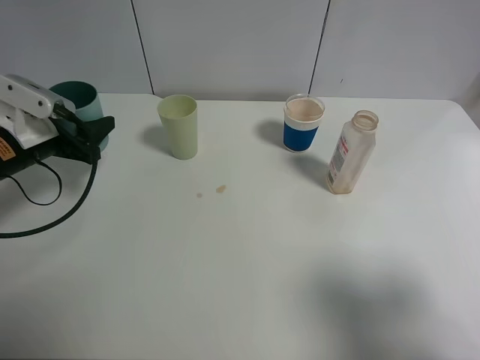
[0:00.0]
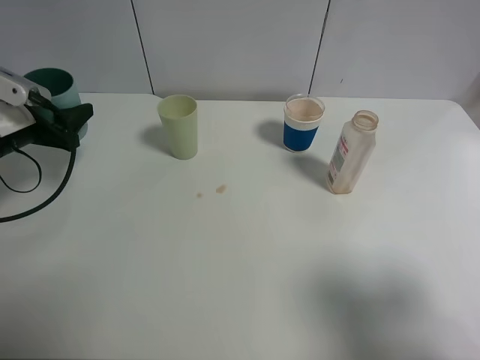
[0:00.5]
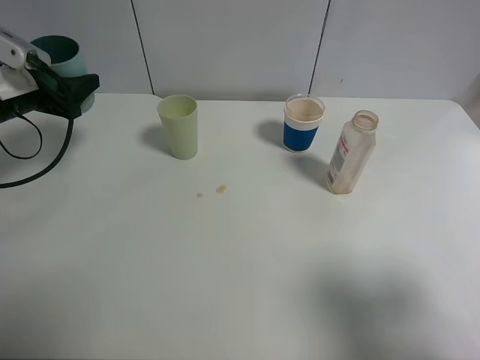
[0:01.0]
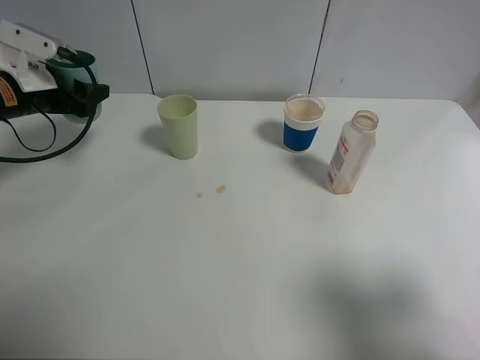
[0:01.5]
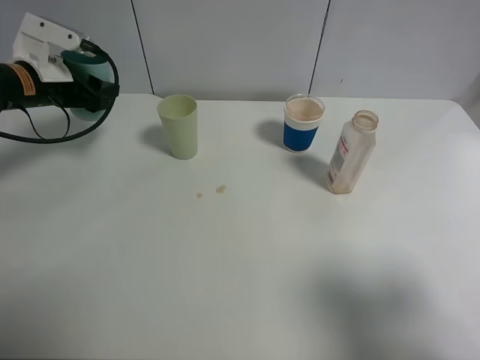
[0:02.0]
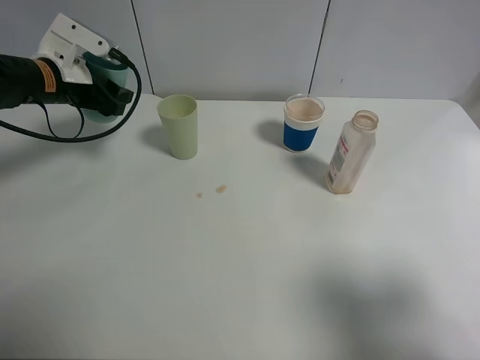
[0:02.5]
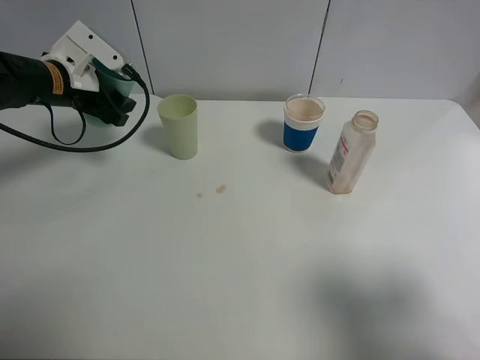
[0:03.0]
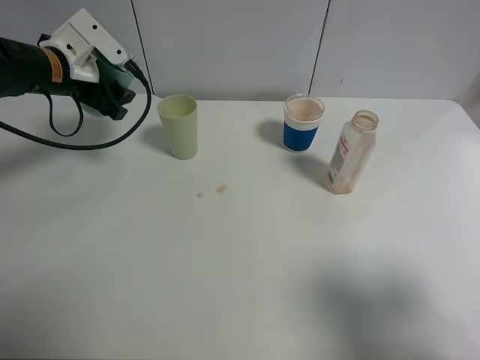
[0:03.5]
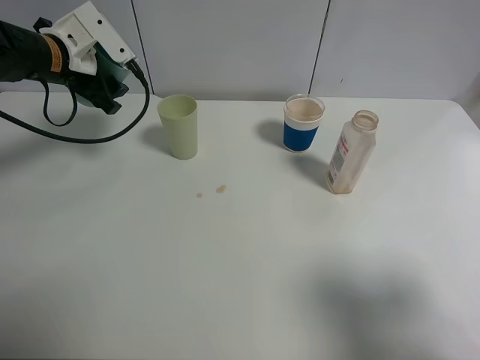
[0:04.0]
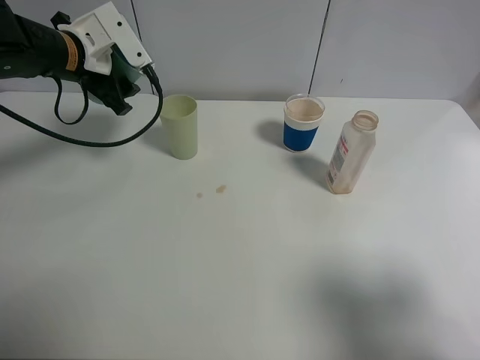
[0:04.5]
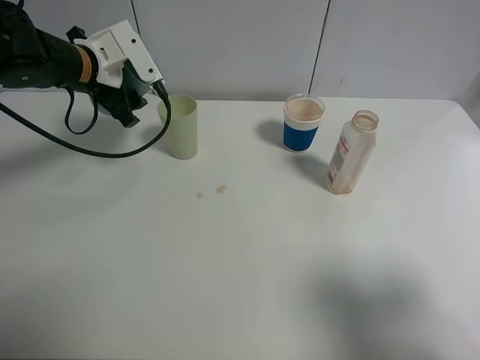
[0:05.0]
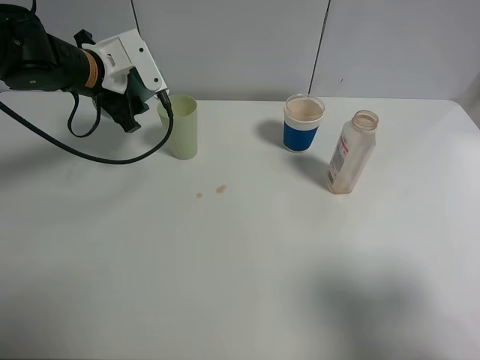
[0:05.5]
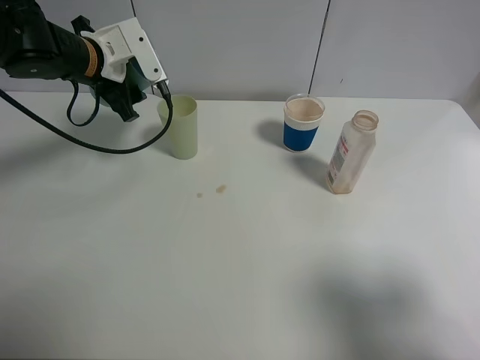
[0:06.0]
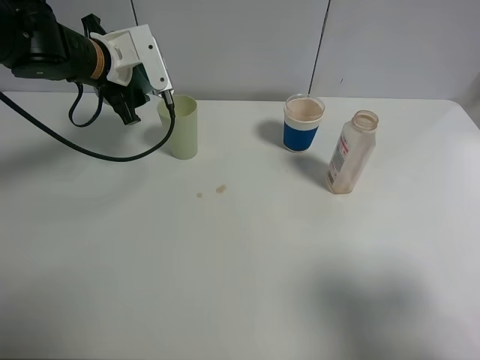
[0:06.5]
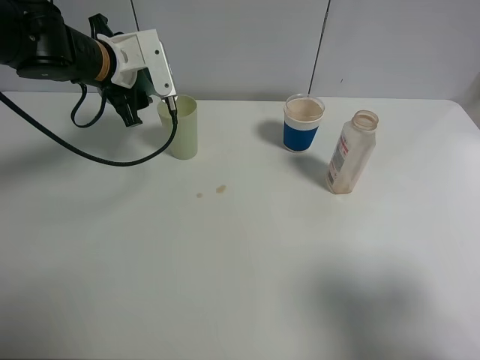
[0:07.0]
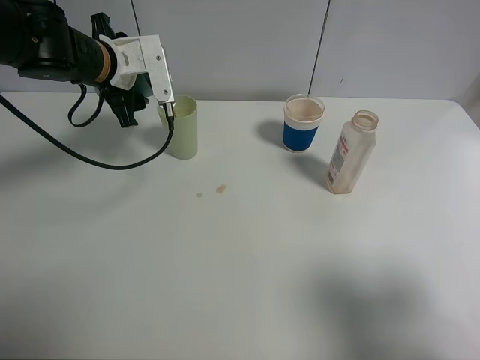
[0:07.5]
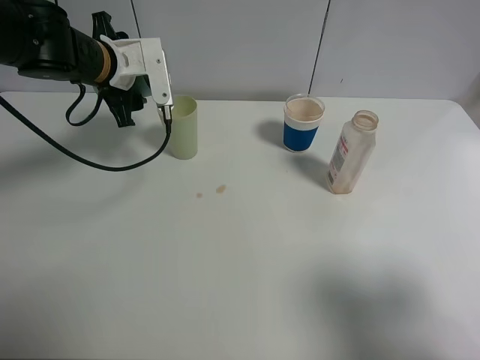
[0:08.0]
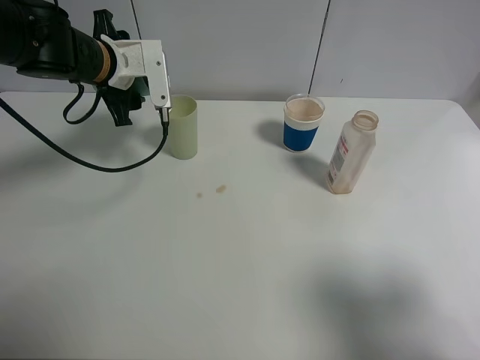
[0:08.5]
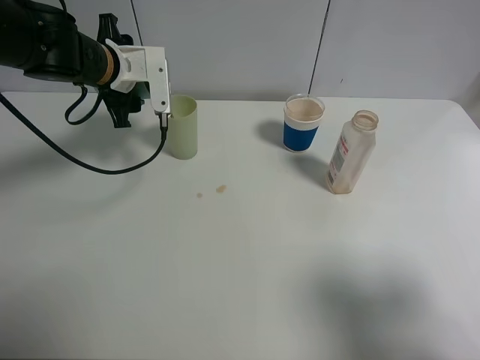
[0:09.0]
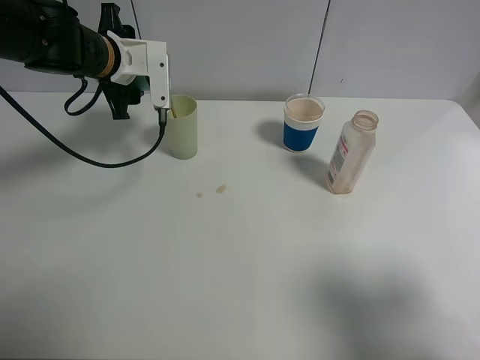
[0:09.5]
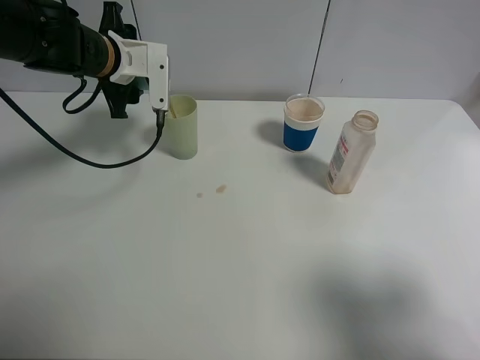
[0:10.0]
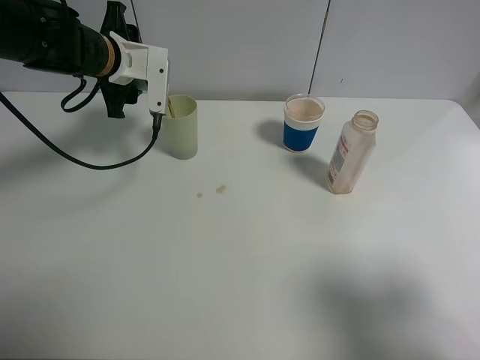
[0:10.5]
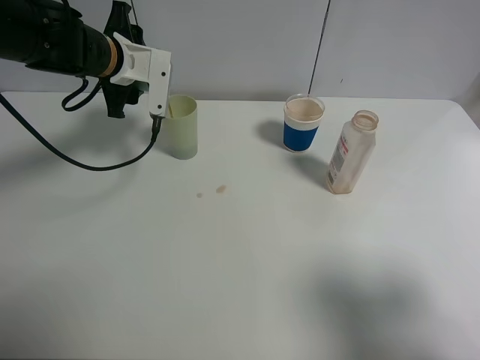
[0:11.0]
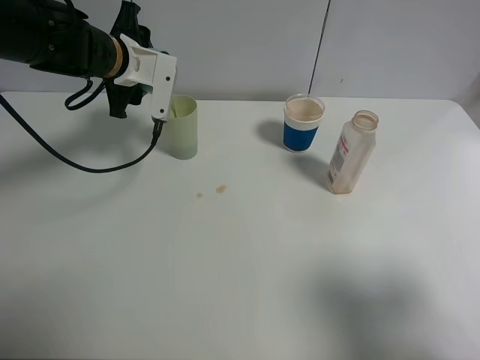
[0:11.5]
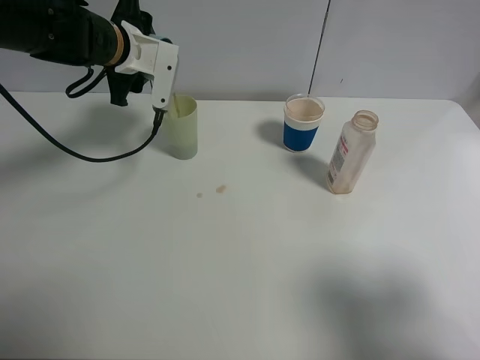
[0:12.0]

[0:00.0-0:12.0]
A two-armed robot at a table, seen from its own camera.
Task of the whole recording: use a clamp to hold the bottle of the drink, pour the beverage into a random cup, then clamp the cup containing the drink and pour the drink into another random cup.
0:00.0 to 0:02.0: The left gripper travels forward by roughly 10 cm.
0:02.0 to 0:04.0: The left gripper shifts by some 5 cm.
0:04.0 to 0:06.0: There are only small adjustments of the grippers.
0:06.0 to 0:08.0: The grippers make only small movements.
0:08.0 to 0:10.0: The grippers move only a little.
0:10.0 to 0:12.0: The grippers make only small movements.

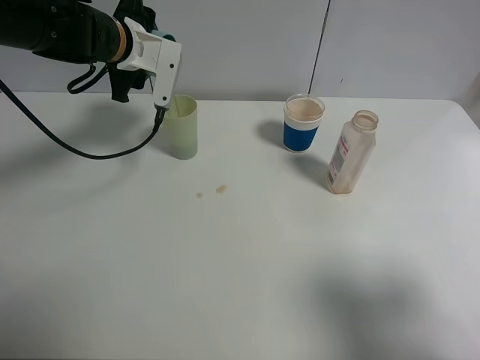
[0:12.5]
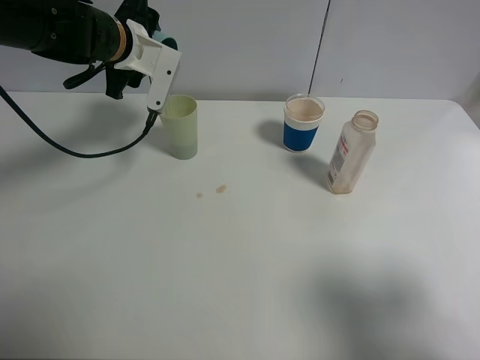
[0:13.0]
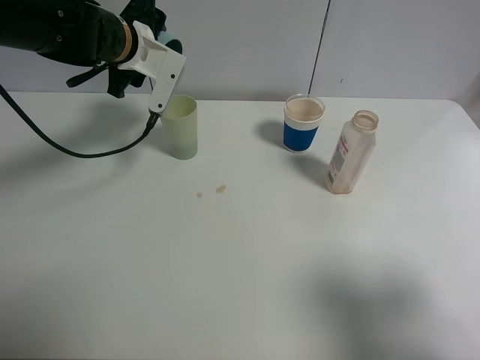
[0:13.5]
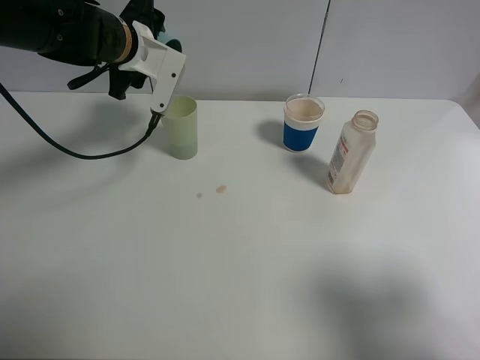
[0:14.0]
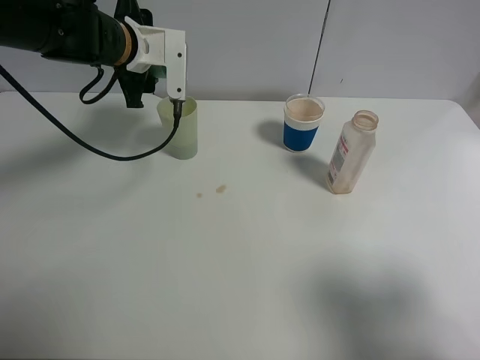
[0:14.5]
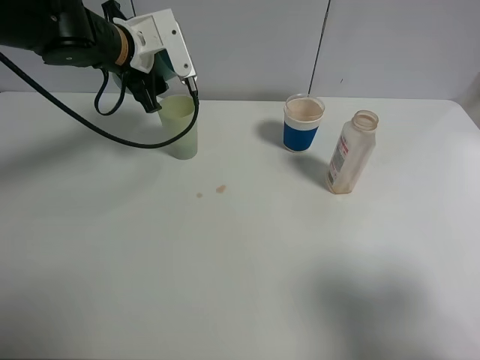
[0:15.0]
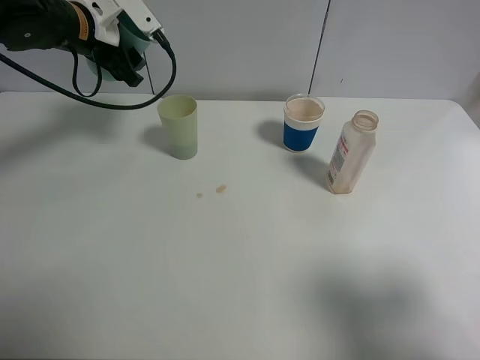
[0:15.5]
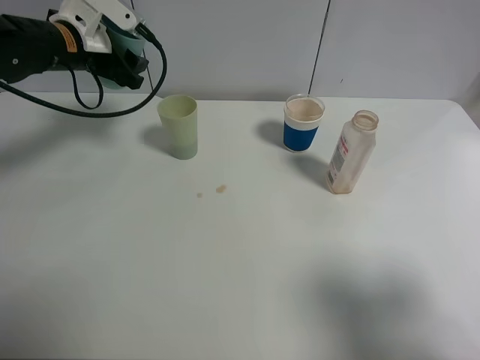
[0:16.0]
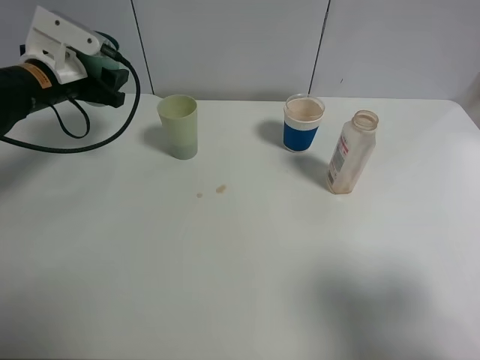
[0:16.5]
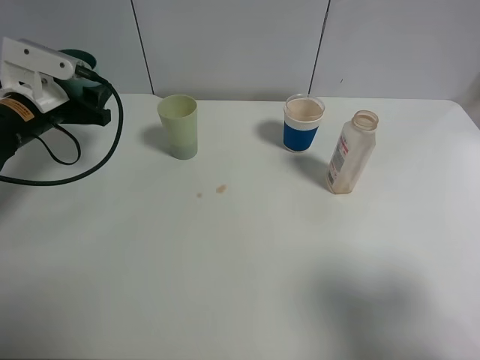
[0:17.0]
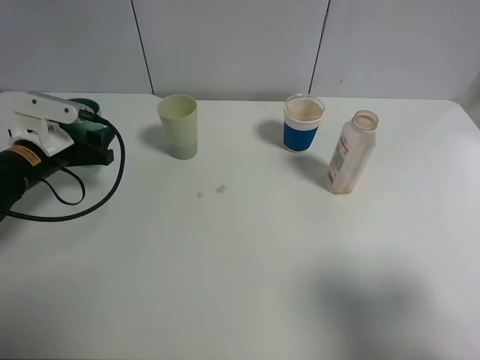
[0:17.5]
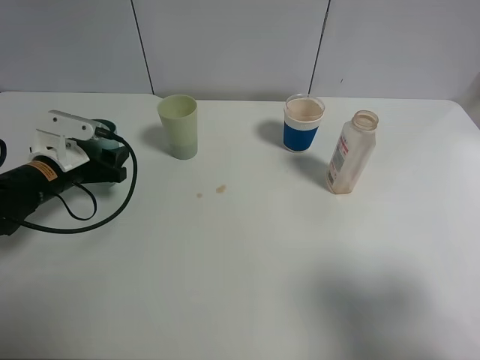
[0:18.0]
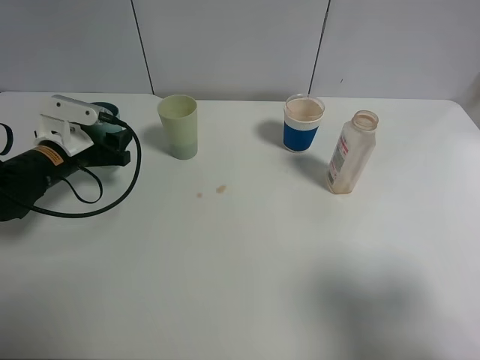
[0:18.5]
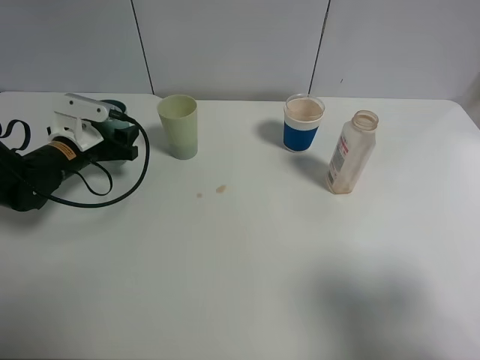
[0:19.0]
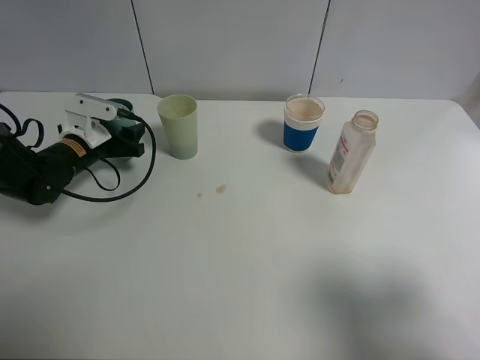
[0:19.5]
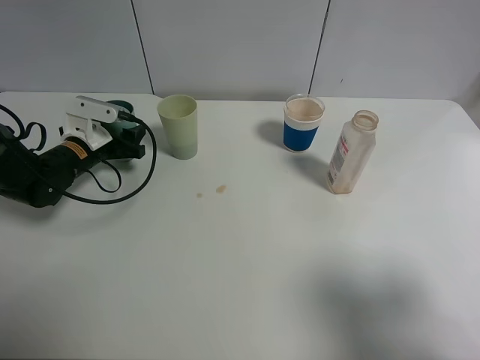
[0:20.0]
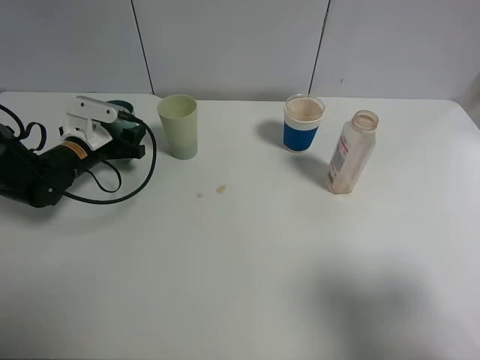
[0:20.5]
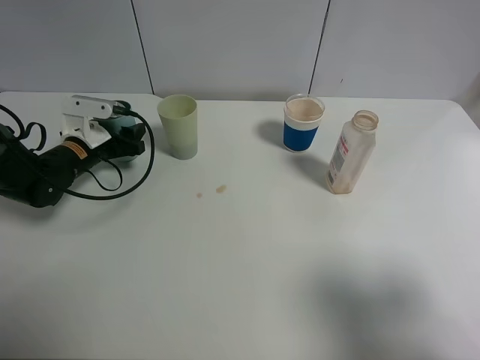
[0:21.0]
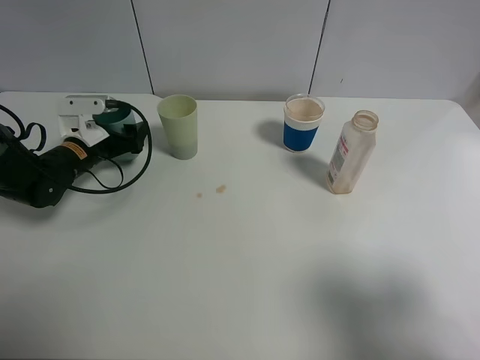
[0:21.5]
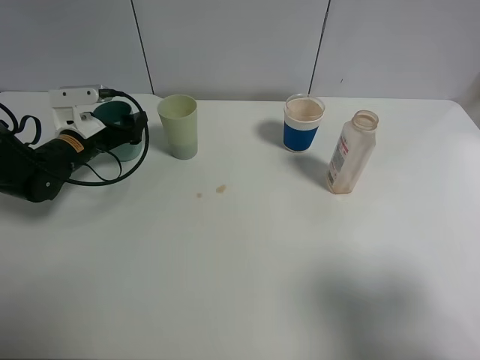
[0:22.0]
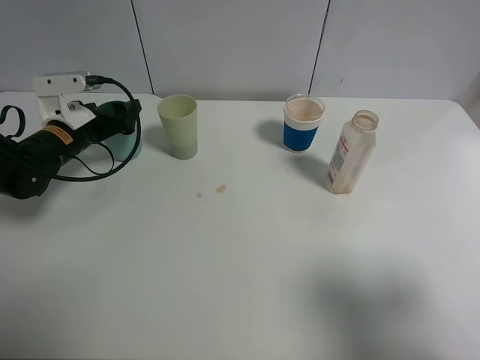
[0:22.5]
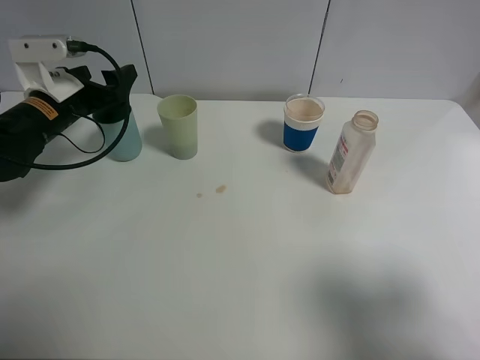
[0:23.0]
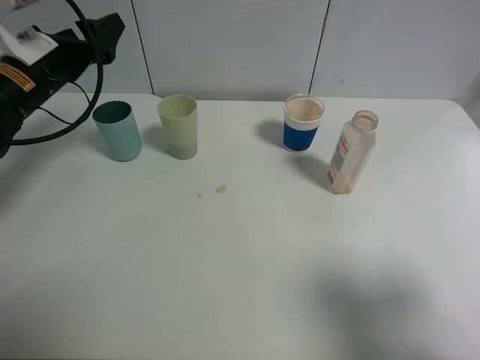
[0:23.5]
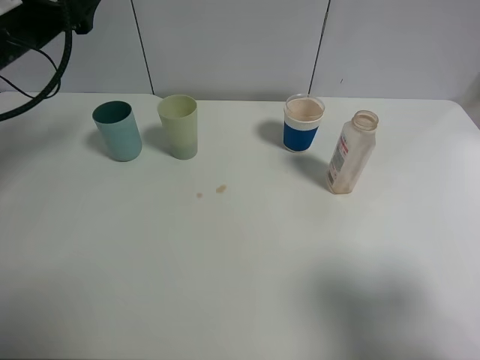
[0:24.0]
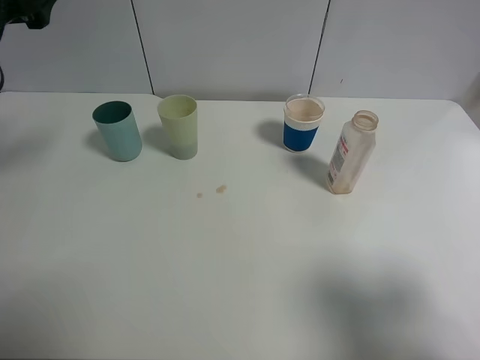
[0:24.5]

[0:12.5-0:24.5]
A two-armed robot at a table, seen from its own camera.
Task of the whole recording: use a clamp to hold the bottle of the drink, pour the beverage into a random cup, then clamp the cup containing the drink and pour the drink into another random cup.
Step, 0:12.5 to 0:15.0: Pour the drink into the green plastic cup with left gripper.
Step, 0:15.5 to 0:22.0: Place the blue plastic cup on the table with left gripper.
0:12.5 to 0:14.5: The grippers stay close to where they were, moving slightly.
0:14.5 to 0:16.5: The left gripper goes about 10 cm to the left.
0:16.5 to 0:18.5: The left gripper goes approximately 10 cm downward.
0:18.5 to 0:20.5: The left gripper changes place by about 5 cm.
0:20.5 to 0:22.5: The left gripper opens up.
0:22.5 to 0:24.5: The left gripper travels upward and backward by approximately 20 cm.

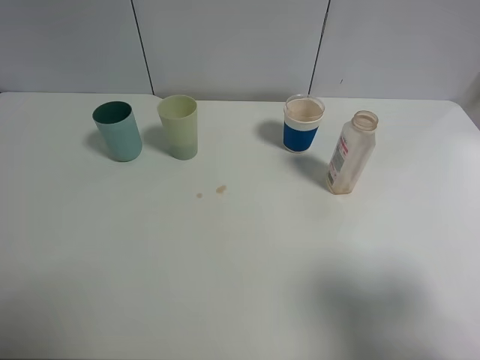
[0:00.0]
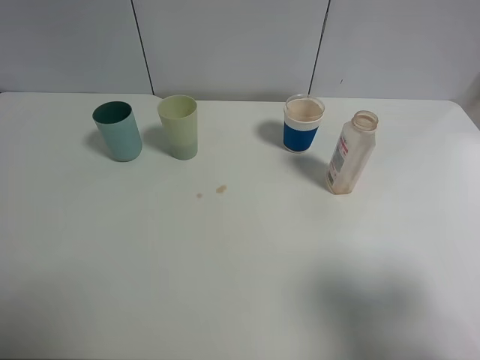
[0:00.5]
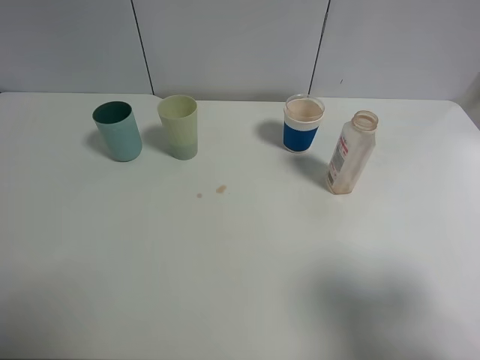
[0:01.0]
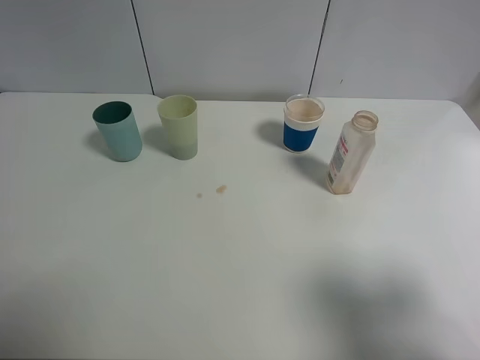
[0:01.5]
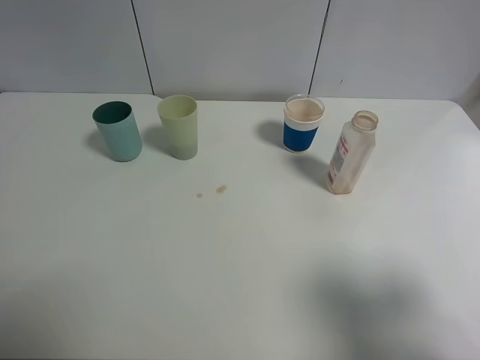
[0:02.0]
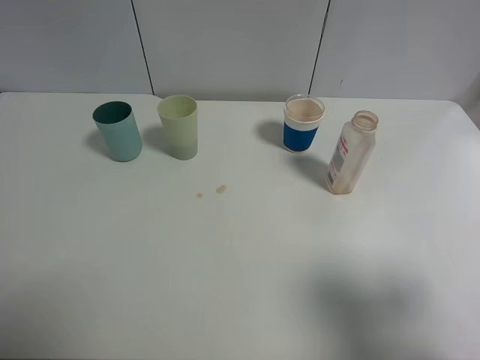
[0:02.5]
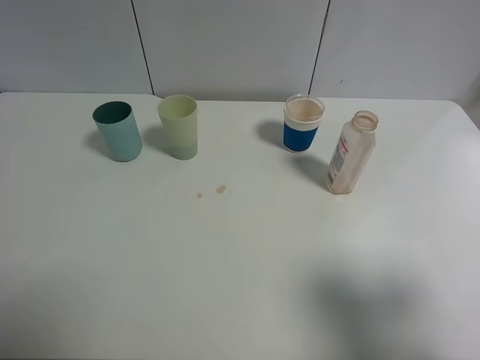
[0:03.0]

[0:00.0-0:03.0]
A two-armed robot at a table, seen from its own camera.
Task of the whole recording: use a clamp to hold the bottle of the drink, pour the beverage into a random cup, then clamp the cup containing the drink and pour the drink into another random cup.
0:00.0 to 0:03.0: The two grippers keep their place.
